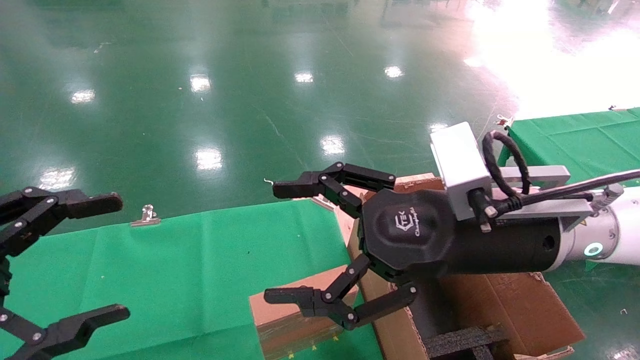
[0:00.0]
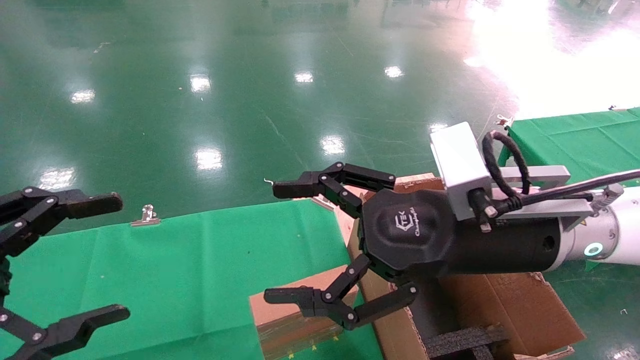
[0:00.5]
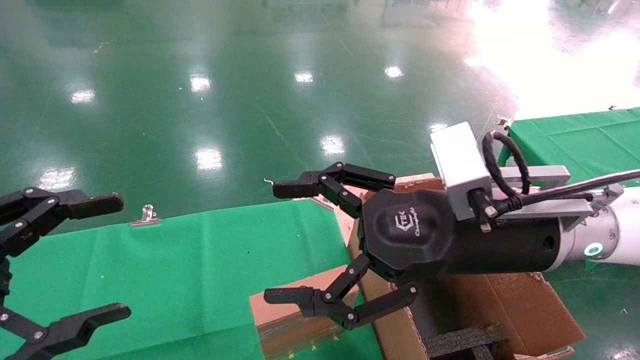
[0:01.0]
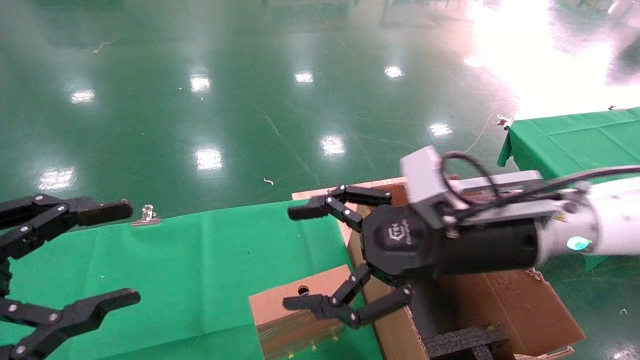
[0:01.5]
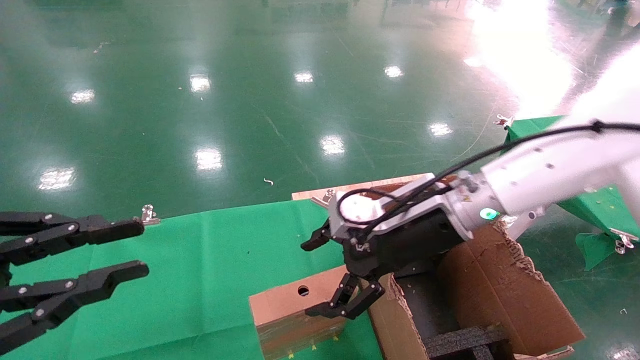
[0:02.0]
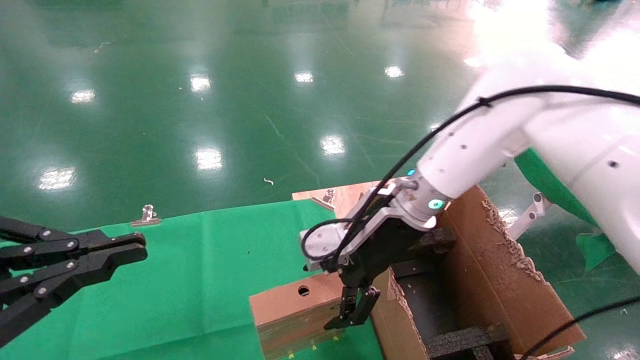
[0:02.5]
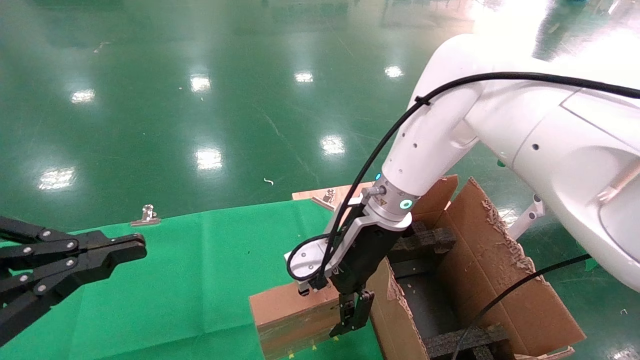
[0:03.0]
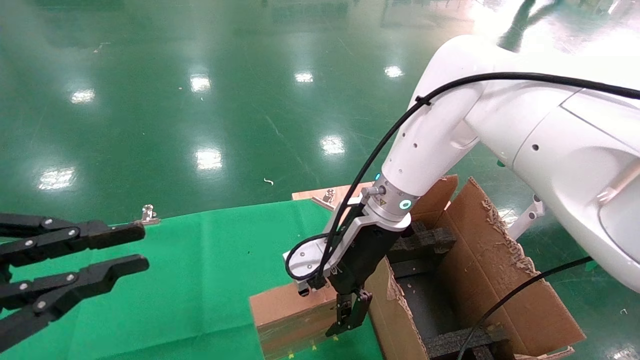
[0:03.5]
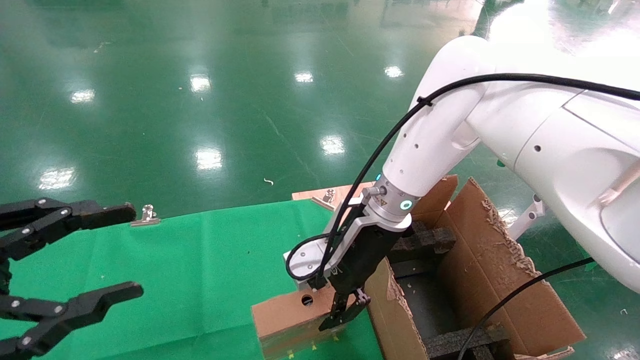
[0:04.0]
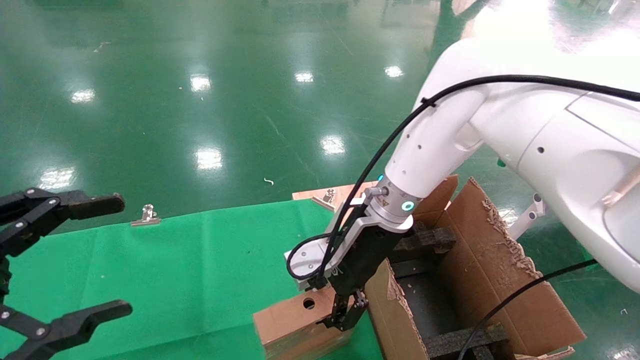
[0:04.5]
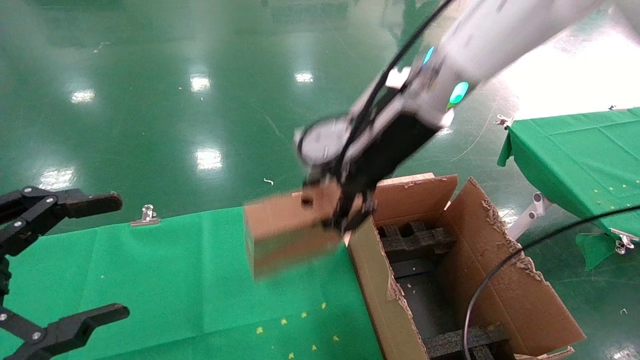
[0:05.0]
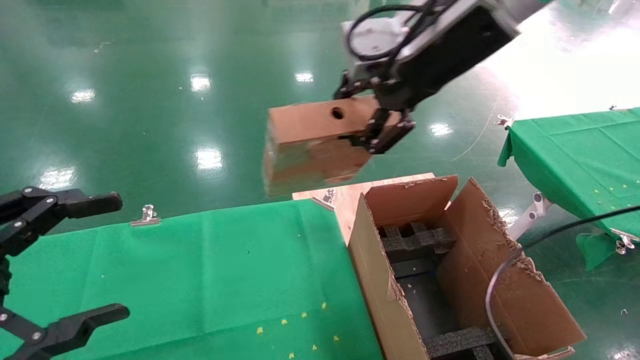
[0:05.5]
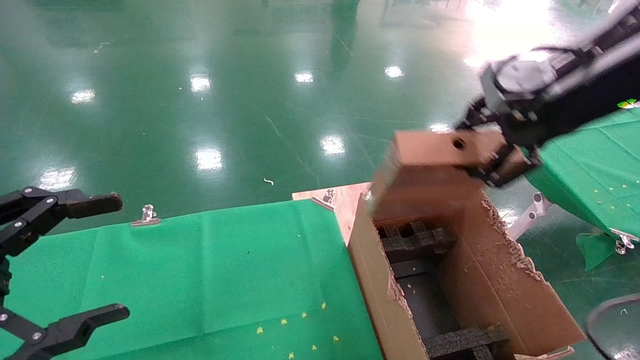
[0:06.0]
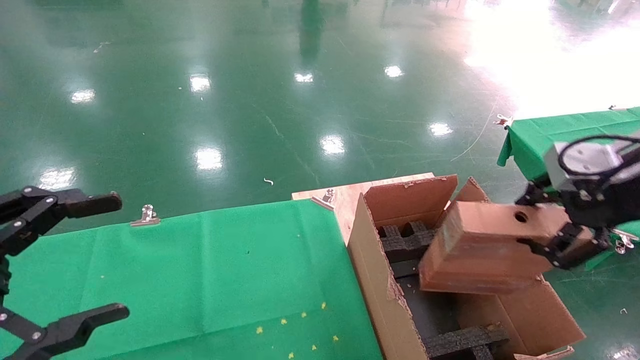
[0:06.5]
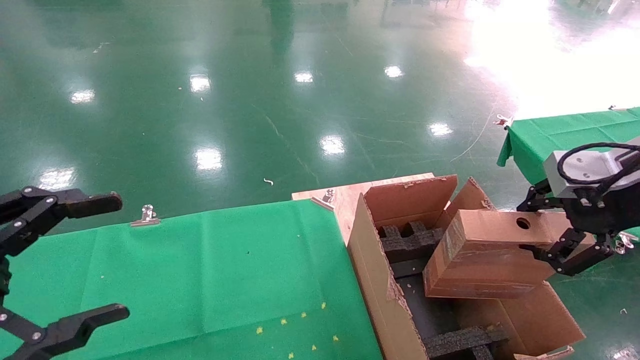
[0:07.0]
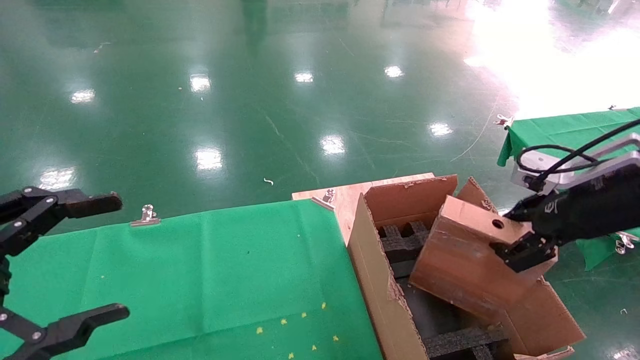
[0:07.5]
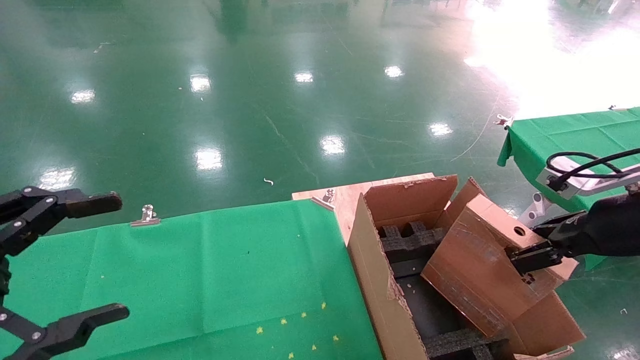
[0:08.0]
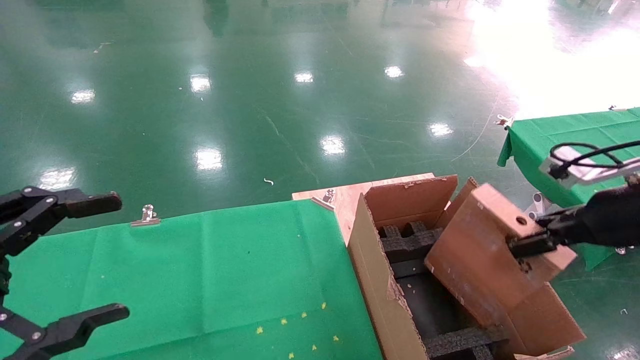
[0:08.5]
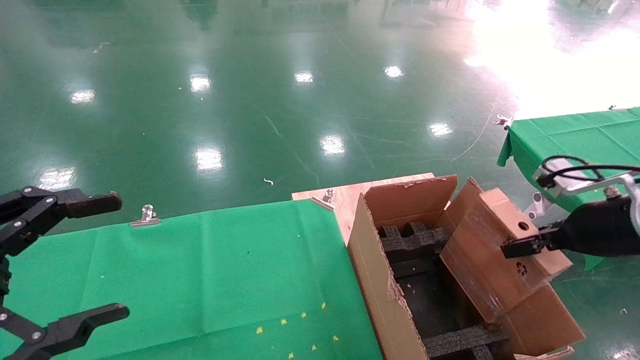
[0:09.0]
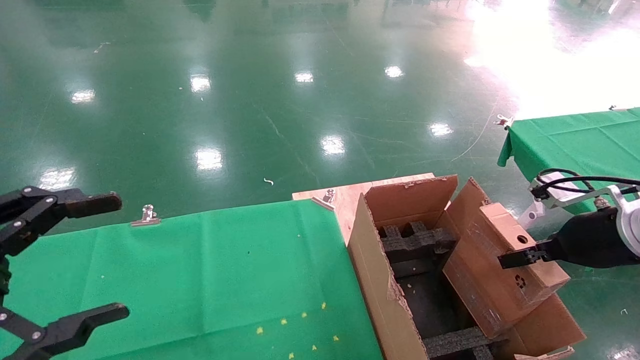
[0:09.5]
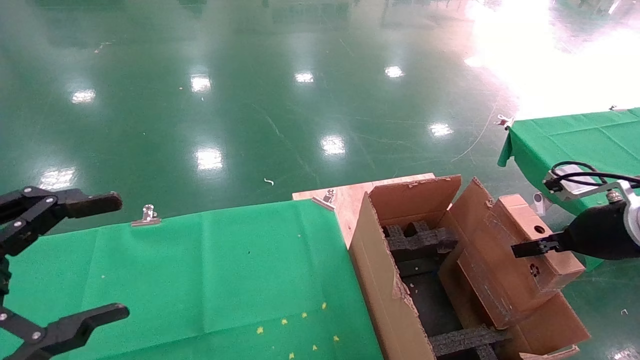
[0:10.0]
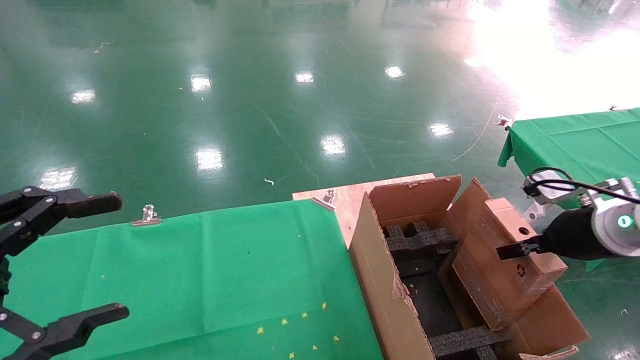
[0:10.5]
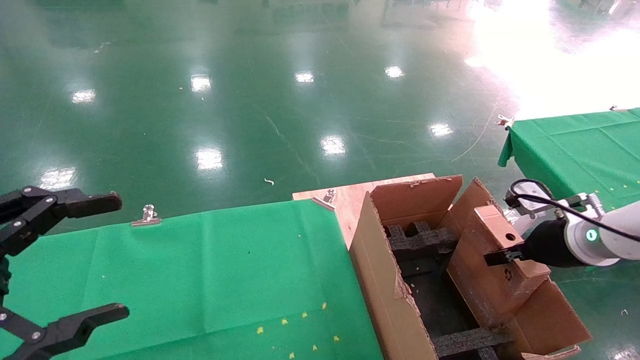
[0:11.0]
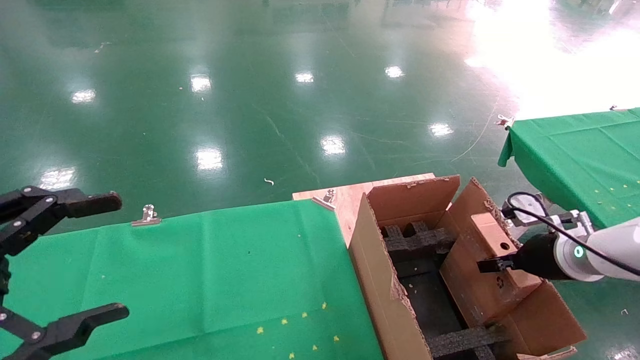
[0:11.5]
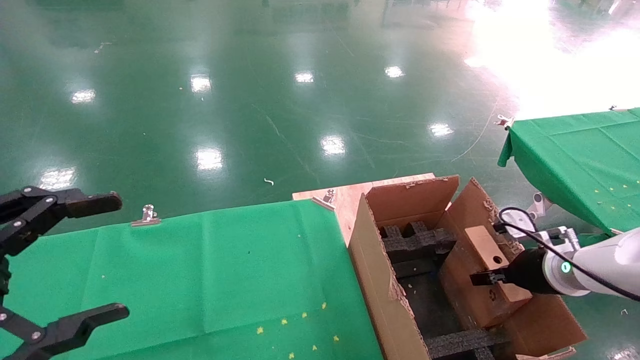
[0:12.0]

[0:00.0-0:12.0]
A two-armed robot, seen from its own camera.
Task of the whole recording: using a robotic arm to pick up a cardboard box and palace it the carton.
Step, 0:02.0 to 0:04.0: Pick up the mouse and the power cord paper box.
0:00.0 to 0:02.0: The right gripper moves forward, some 10 cm; the left gripper closes.
0:02.0 to 0:04.0: The left gripper closes and opens again. The right gripper is displaced to the left by roughly 5 cm, and closes.
0:04.0 to 0:06.0: The right gripper heads to the right, upward and backward, covering approximately 30 cm, and closes; the left gripper opens.
0:06.0 to 0:08.0: The right gripper heads downward and to the right, covering approximately 20 cm.
0:08.0 to 0:10.0: The right gripper ends up approximately 5 cm from where it was.
0:10.0 to 0:12.0: The right gripper moves downward and forward, approximately 10 cm.

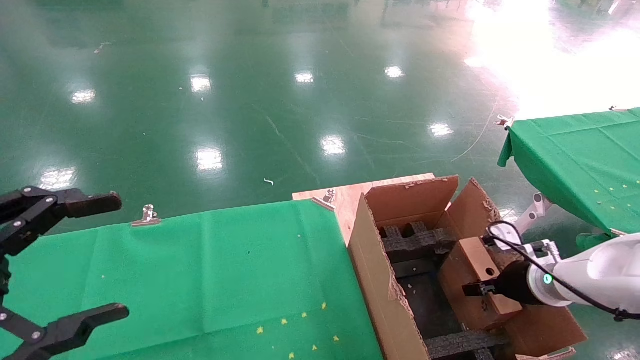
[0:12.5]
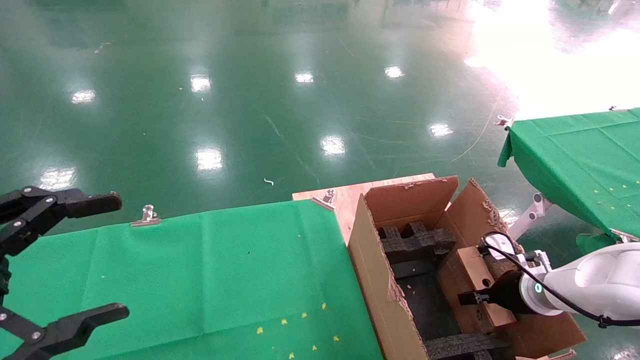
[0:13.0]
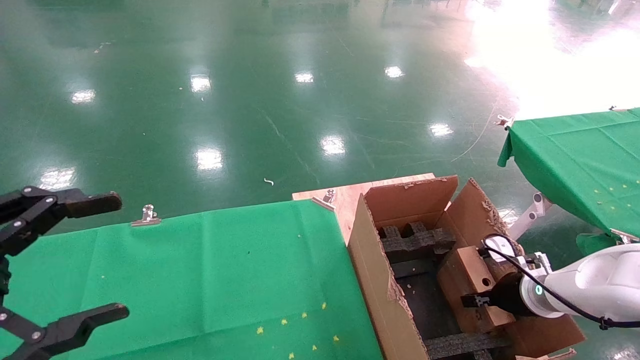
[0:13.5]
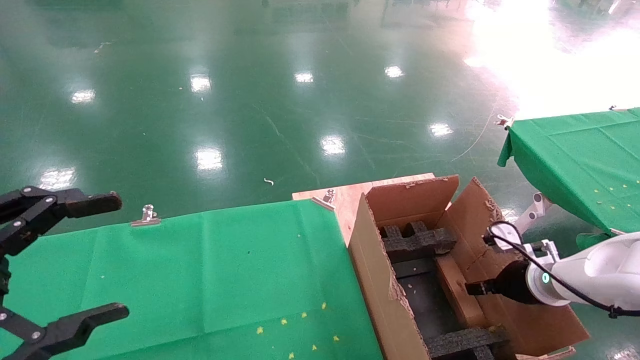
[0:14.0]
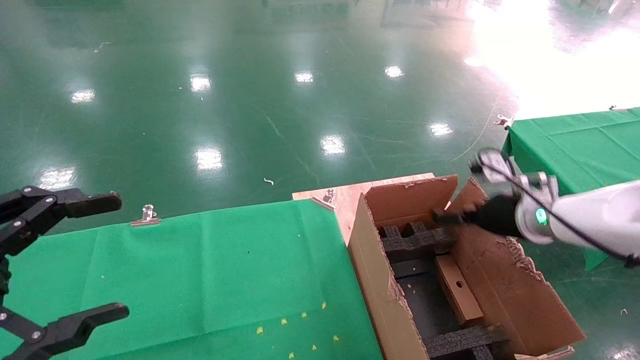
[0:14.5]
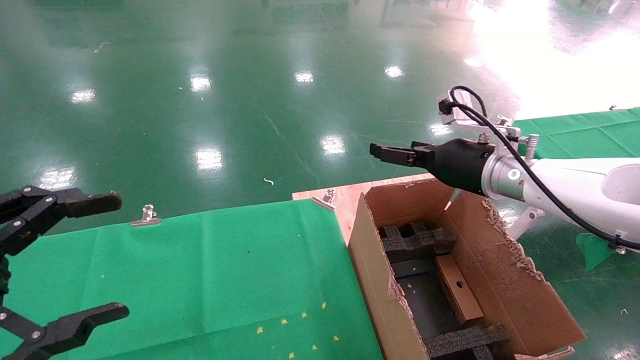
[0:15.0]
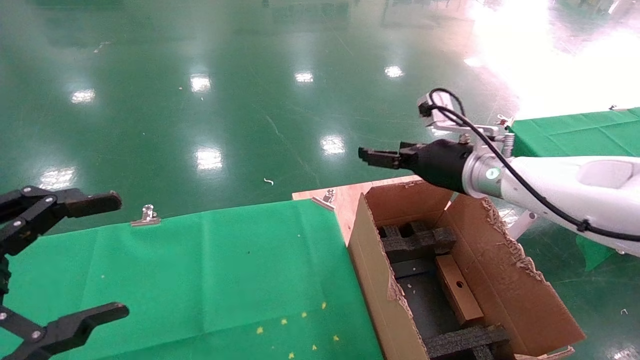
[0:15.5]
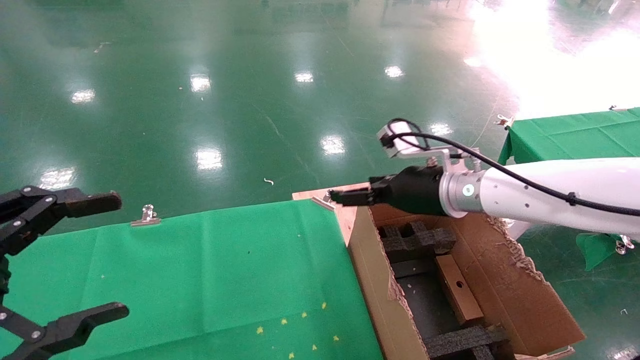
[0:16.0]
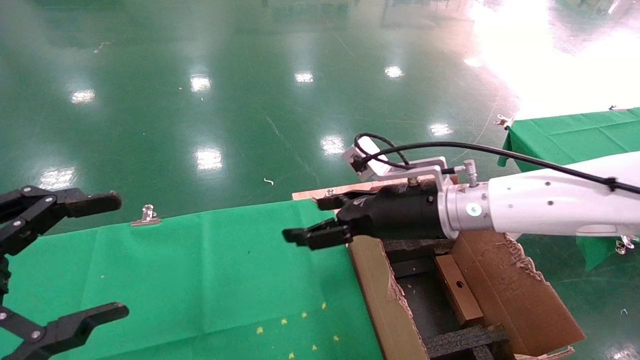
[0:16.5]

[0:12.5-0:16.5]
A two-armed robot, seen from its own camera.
Task of the whole recording: using a robotic arm to pick up a cardboard box and palace it the carton.
0:12.5 to 0:14.5: The right gripper goes roughly 10 cm upward, and opens its fingers.
0:14.5 to 0:16.5: The right gripper moves to the left, about 15 cm.
